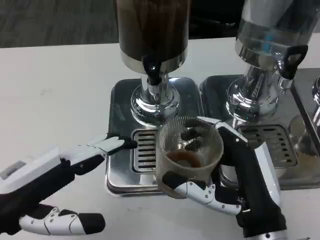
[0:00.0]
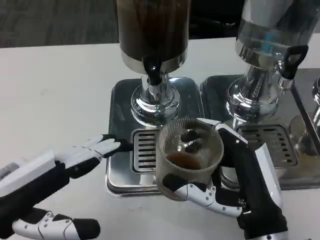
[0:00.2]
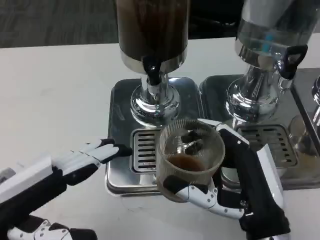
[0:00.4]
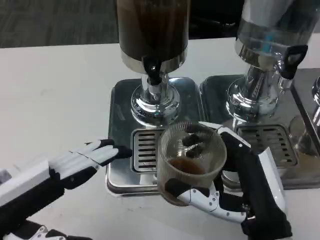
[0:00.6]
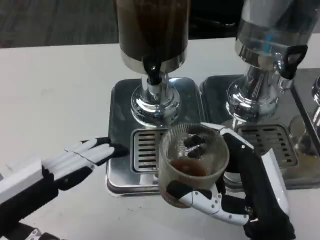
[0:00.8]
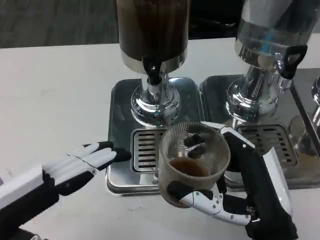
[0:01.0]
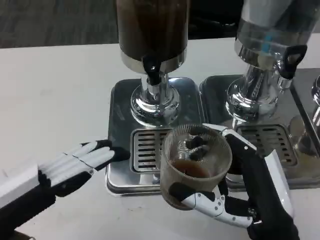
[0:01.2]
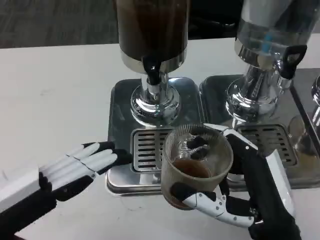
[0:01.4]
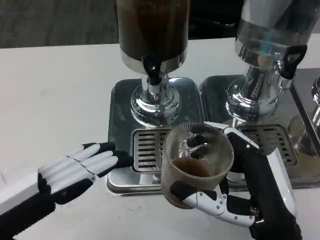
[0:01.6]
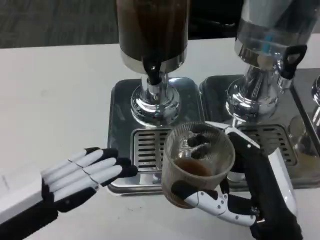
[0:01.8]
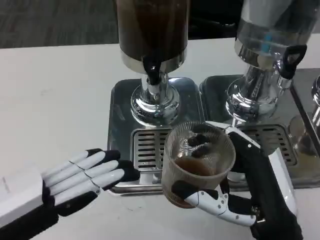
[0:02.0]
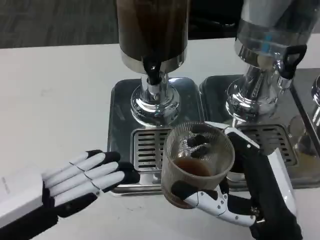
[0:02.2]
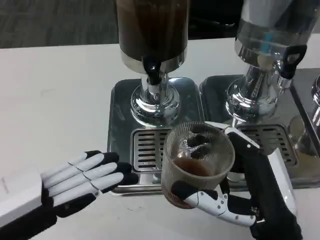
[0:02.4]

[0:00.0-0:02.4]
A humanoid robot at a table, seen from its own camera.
Task of the whole recording: Grasp the cup under the faucet to collect the drink, then remove the cup.
0:00.0 to 0:02.4: The hands make only small movements.

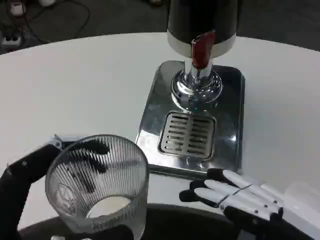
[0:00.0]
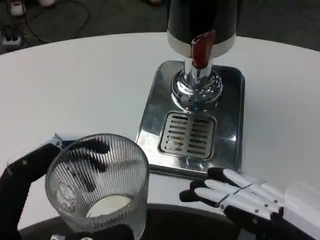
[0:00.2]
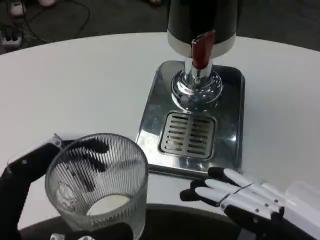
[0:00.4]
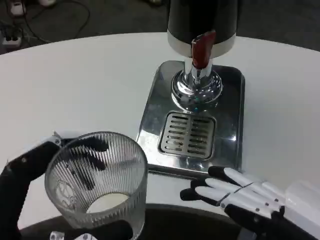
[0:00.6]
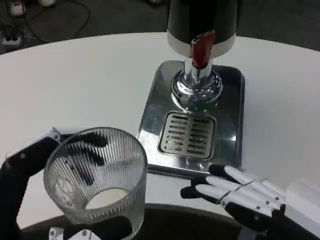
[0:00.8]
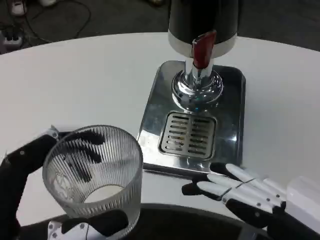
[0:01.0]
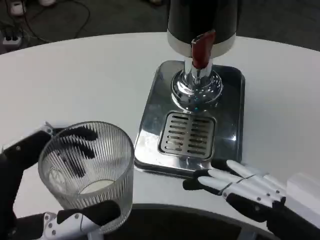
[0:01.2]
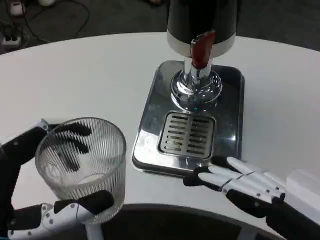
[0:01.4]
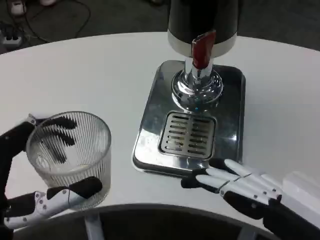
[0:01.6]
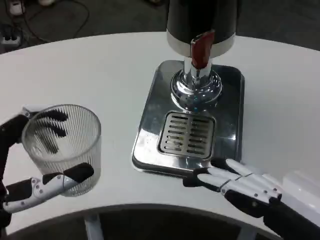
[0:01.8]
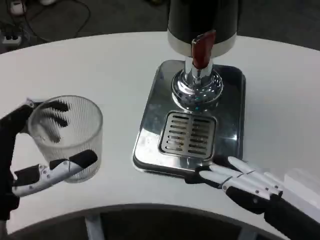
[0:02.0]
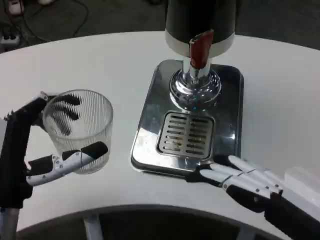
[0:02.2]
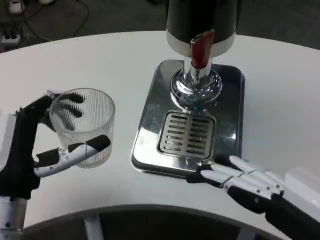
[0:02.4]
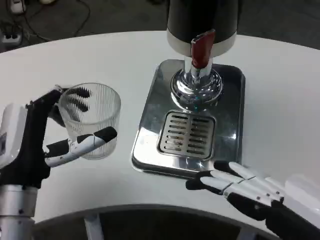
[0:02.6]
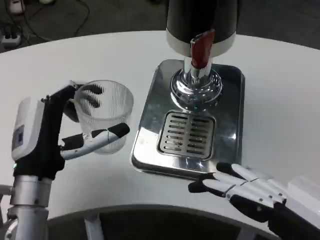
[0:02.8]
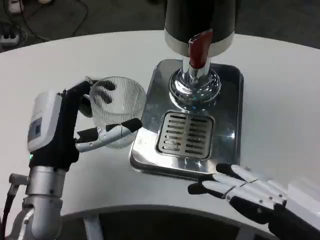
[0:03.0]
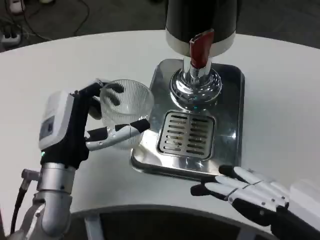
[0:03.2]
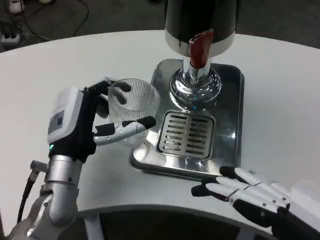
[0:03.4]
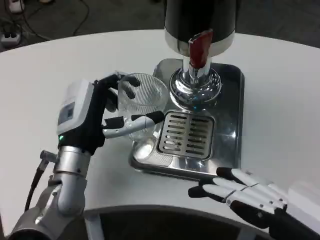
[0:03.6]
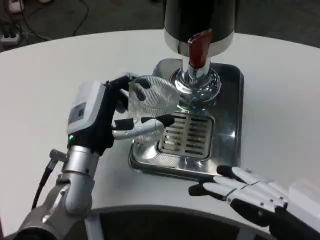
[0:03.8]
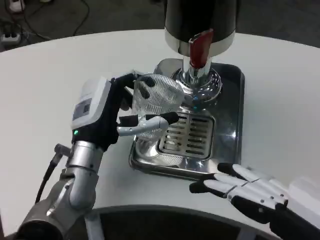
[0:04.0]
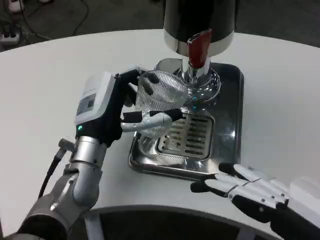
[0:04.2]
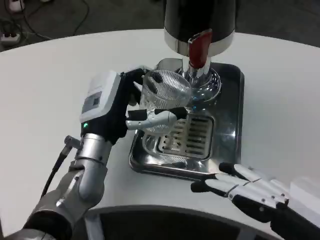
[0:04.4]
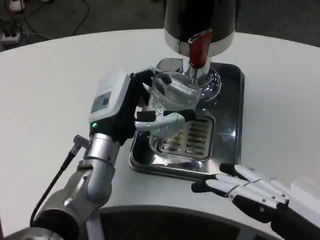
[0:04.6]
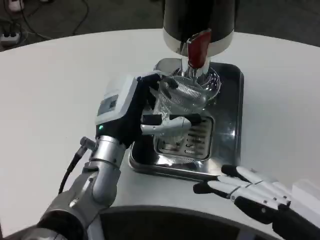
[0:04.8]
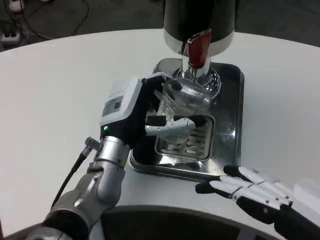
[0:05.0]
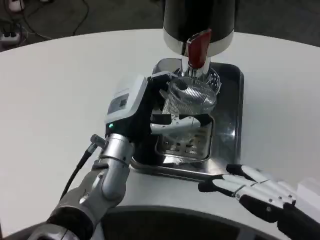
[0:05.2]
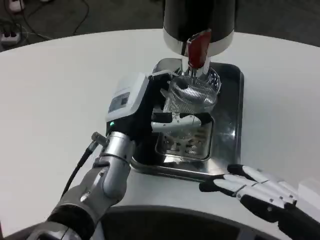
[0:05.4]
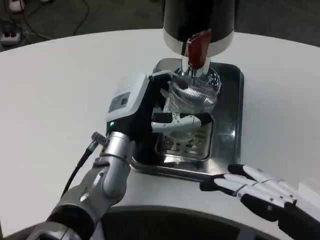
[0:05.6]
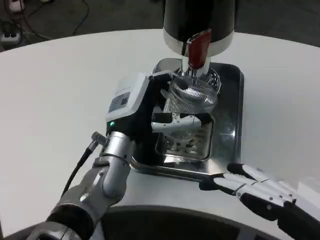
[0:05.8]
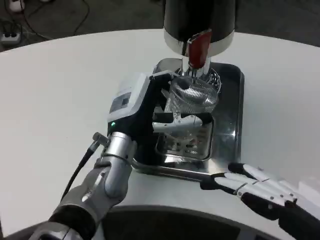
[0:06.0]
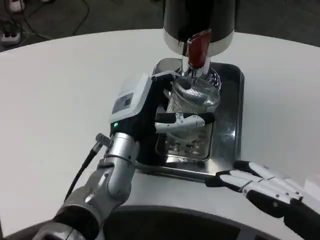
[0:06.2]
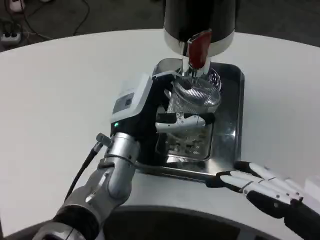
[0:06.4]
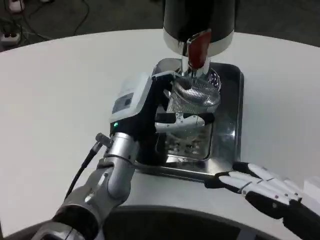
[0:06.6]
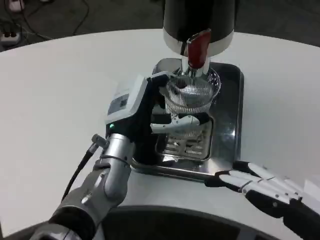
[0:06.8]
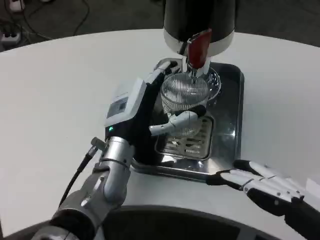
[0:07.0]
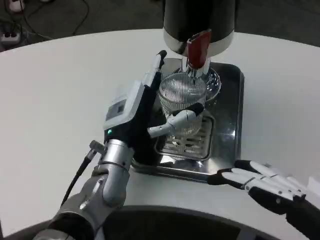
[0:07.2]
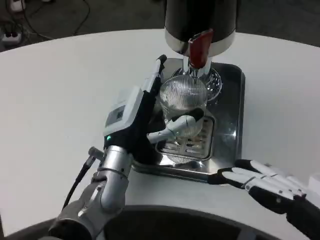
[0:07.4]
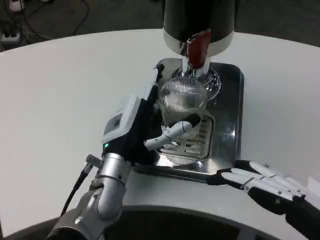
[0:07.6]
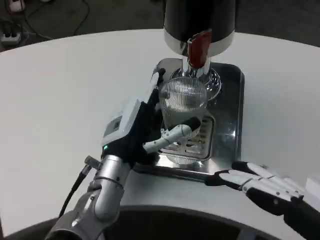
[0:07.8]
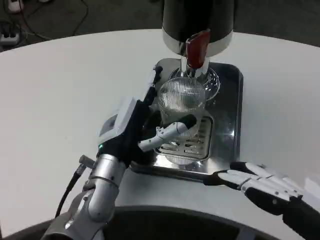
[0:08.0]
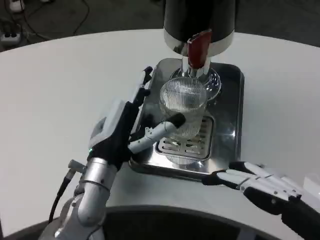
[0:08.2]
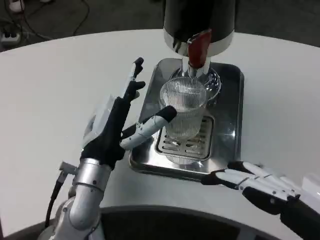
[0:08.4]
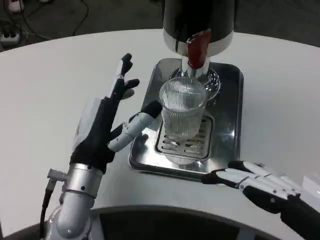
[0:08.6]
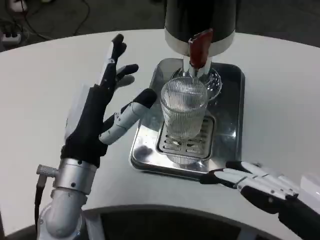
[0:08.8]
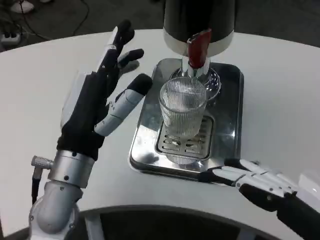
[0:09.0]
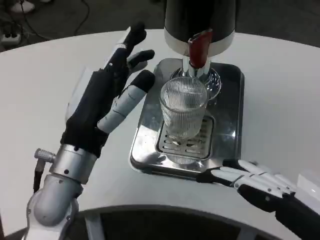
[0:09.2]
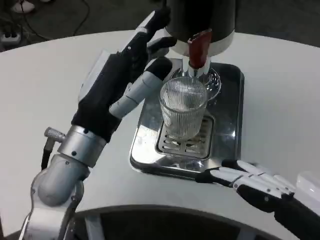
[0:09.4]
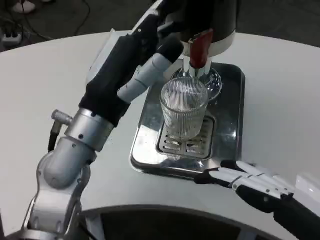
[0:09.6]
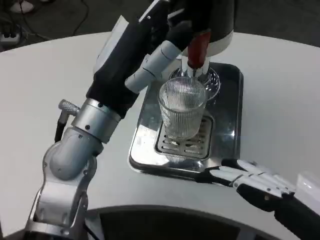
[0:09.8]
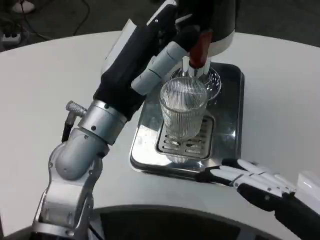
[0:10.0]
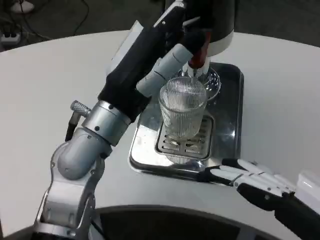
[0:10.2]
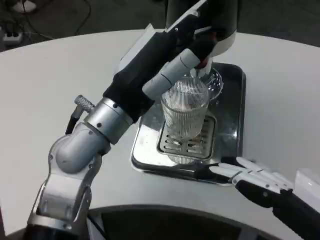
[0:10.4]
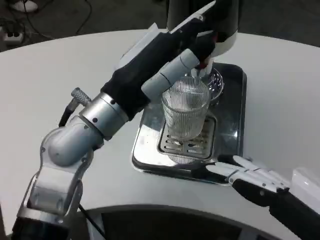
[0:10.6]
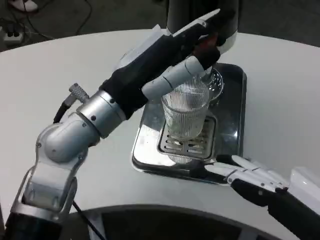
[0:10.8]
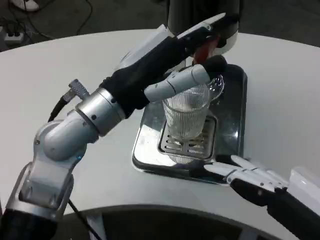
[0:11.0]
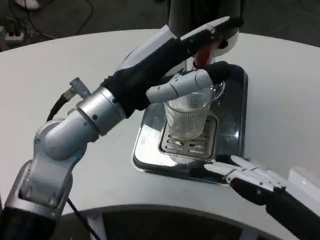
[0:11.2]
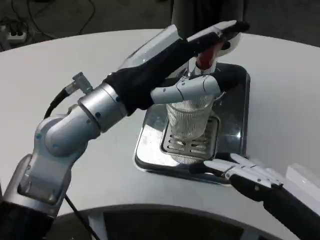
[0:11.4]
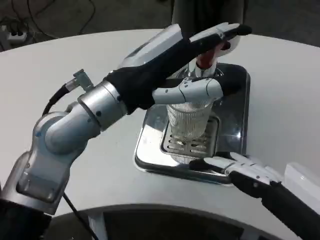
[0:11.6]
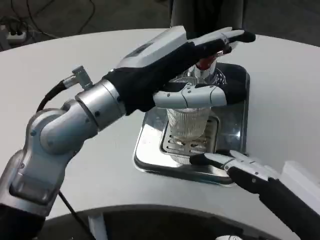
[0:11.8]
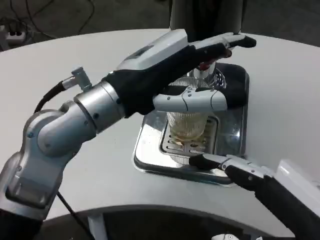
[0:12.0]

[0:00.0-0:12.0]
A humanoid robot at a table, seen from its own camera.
Task of the whole recording: Grasp the cup under the faucet to collect the drink, then remove the cup.
0:00.0 to 0:01.6: The left hand shifts about 5 cm forward.
0:01.6 to 0:03.0: The left hand shifts roughly 15 cm forward.
0:03.0 to 0:04.4: The left hand heads to the right, covering about 5 cm.
0:06.0 to 0:07.6: The hands move only a little.
0:07.6 to 0:09.0: The left hand shifts about 10 cm backward and upward.
0:09.0 to 0:10.4: The left hand shifts some 5 cm upward.

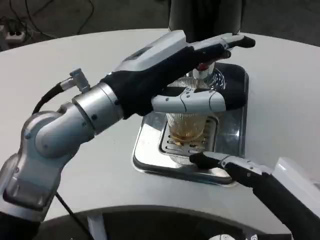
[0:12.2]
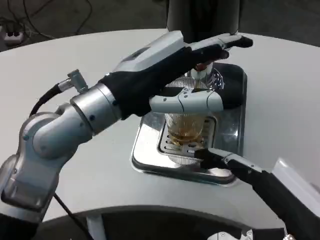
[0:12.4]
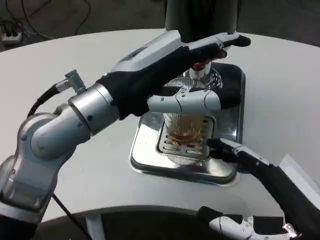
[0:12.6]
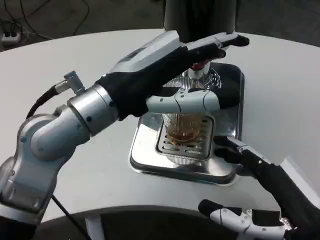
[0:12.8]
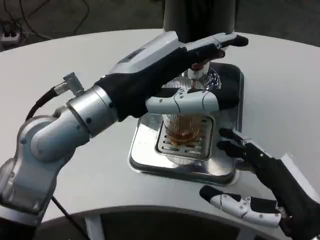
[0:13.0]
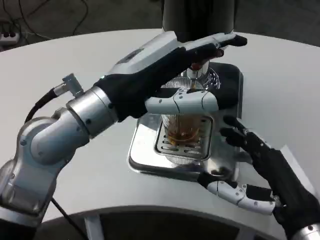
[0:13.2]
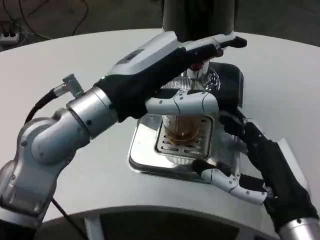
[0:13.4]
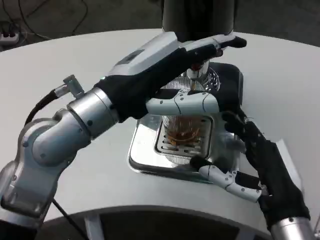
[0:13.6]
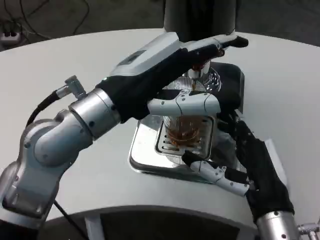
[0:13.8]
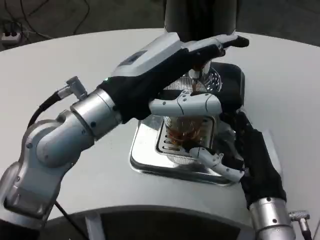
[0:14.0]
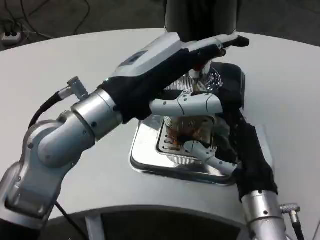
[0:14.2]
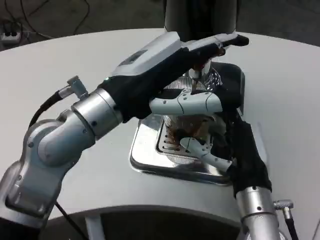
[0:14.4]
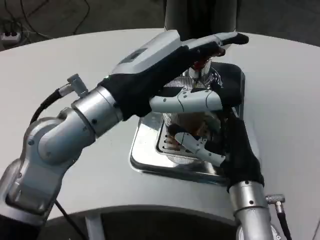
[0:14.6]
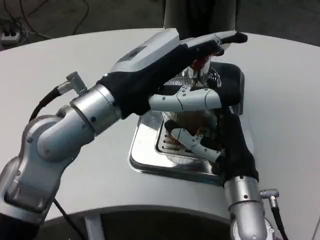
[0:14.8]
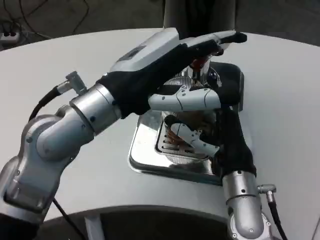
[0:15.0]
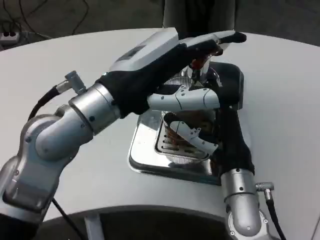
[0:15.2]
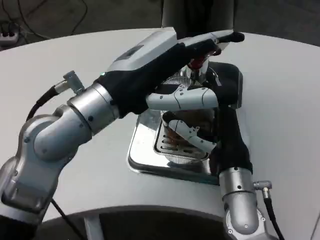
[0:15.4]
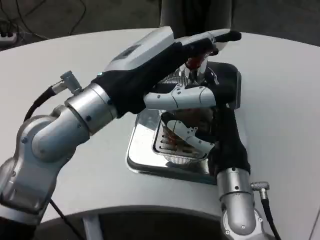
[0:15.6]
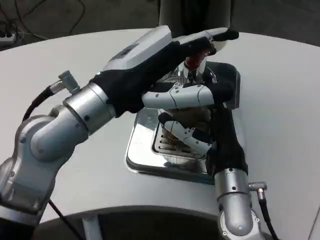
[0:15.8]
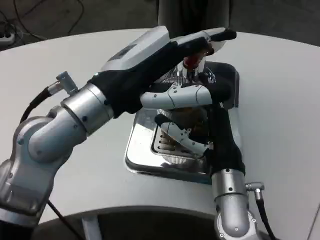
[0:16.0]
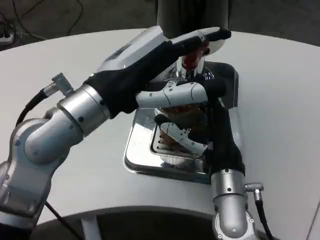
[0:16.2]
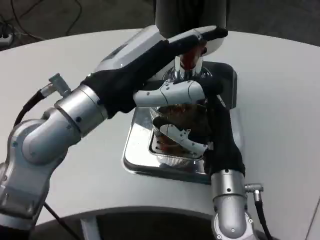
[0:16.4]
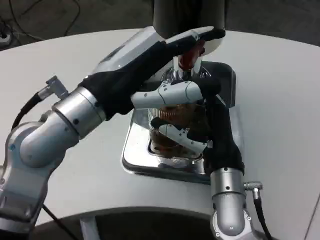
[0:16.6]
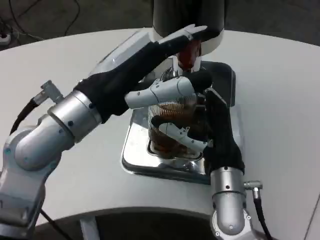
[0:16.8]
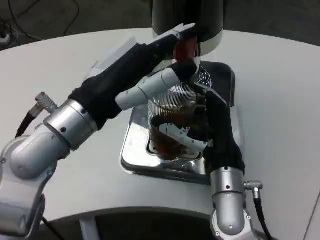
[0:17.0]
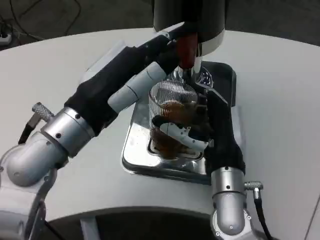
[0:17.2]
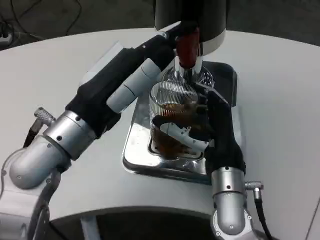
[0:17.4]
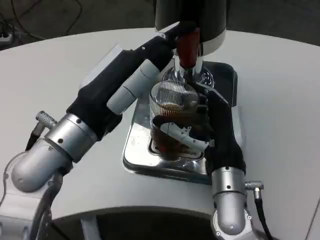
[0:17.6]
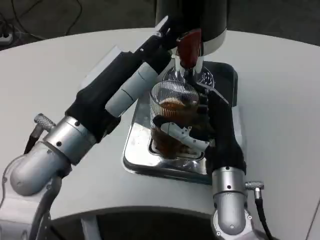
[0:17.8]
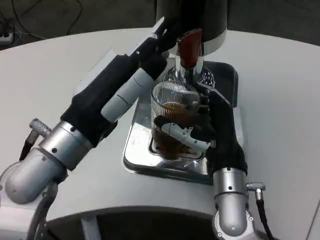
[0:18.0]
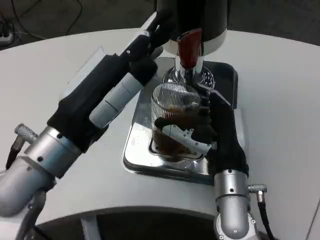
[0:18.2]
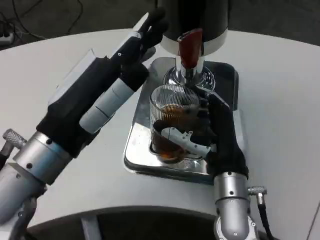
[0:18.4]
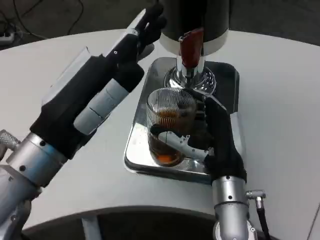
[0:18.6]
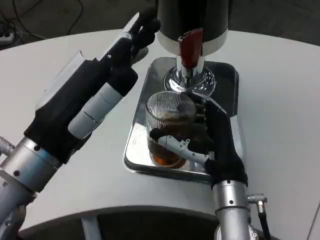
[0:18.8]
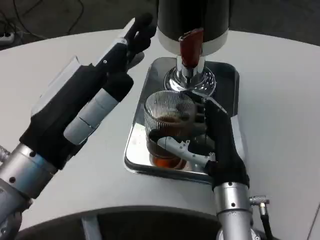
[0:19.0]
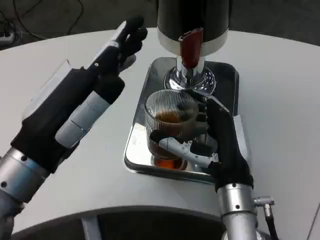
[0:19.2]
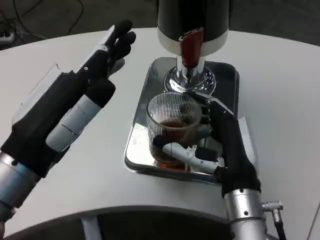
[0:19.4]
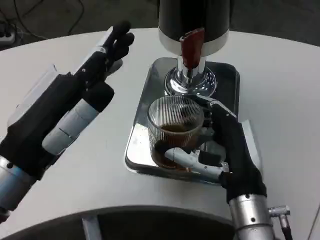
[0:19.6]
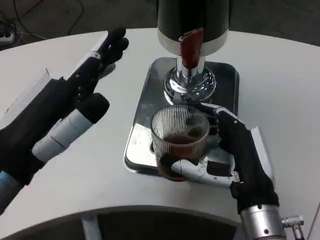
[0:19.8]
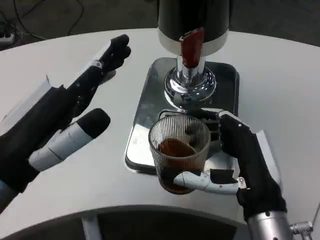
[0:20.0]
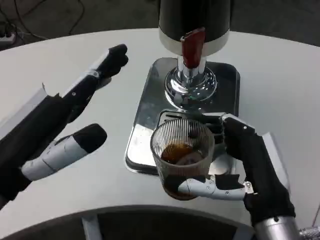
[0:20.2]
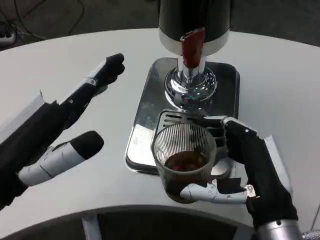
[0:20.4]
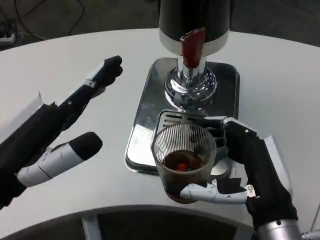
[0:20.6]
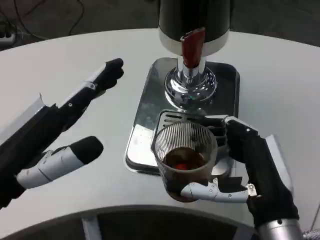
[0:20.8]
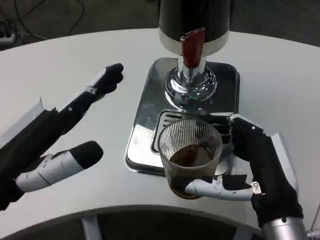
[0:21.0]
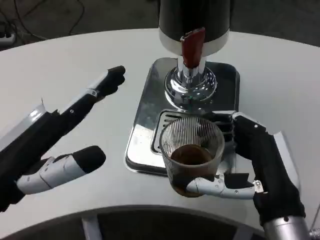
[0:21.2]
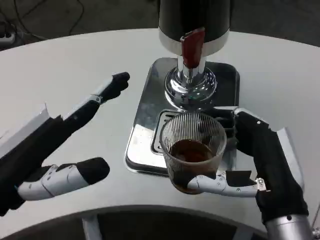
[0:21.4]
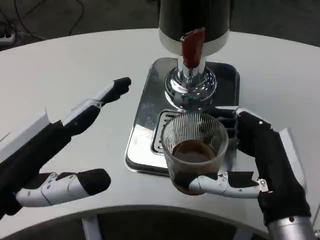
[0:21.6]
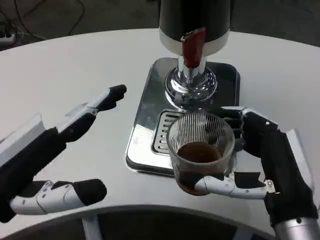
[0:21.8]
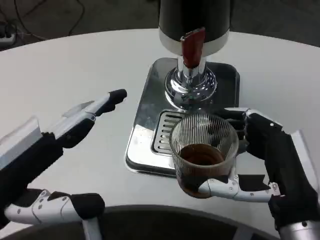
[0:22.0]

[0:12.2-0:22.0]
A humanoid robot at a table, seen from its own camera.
Task of the whole recording: Grasp the cup under the faucet to collect the drink, then remove the cup.
0:12.2 to 0:13.6: The right hand is displaced forward and downward by roughly 15 cm.
0:13.6 to 0:15.0: The right hand moves forward, roughly 10 cm.
0:17.8 to 0:19.2: The left hand is displaced backward by roughly 5 cm.
0:19.2 to 0:20.6: The right hand is displaced backward by some 5 cm. The left hand ends up some 5 cm from where it was.
